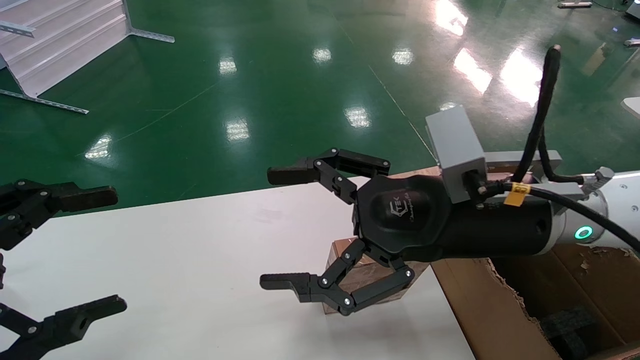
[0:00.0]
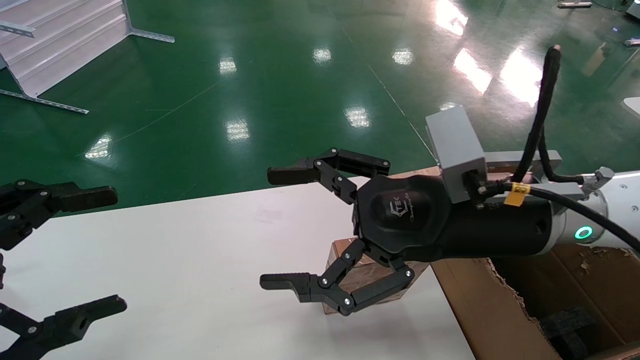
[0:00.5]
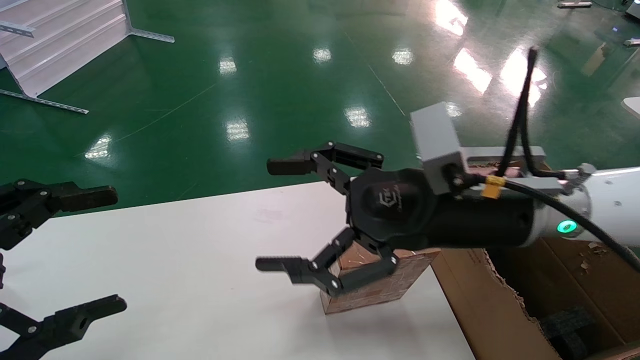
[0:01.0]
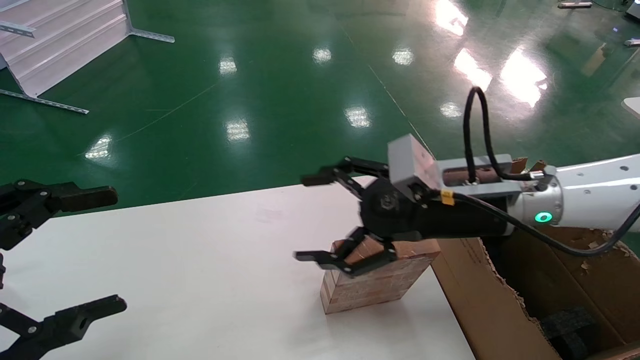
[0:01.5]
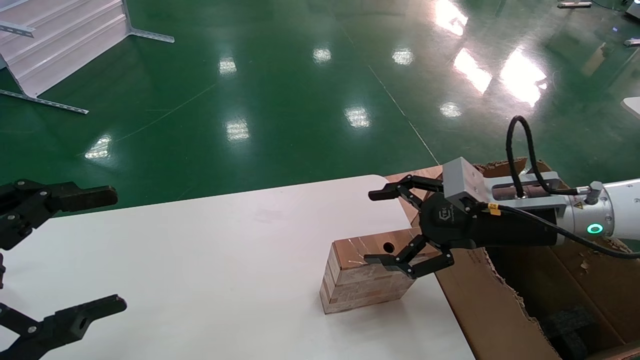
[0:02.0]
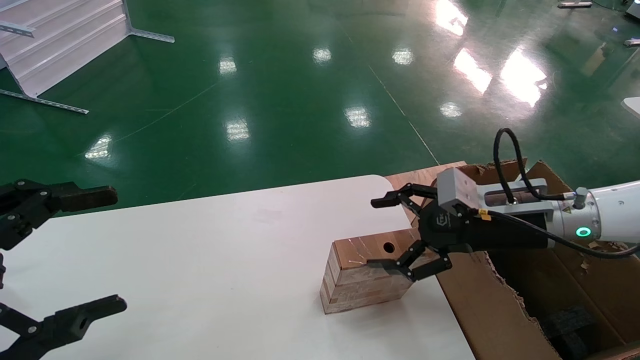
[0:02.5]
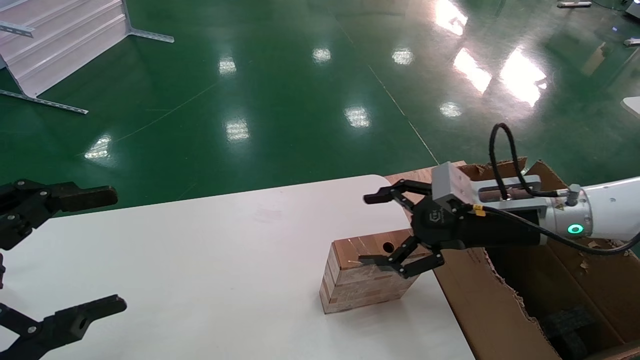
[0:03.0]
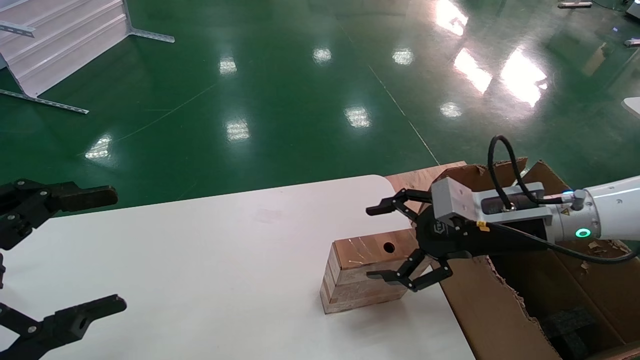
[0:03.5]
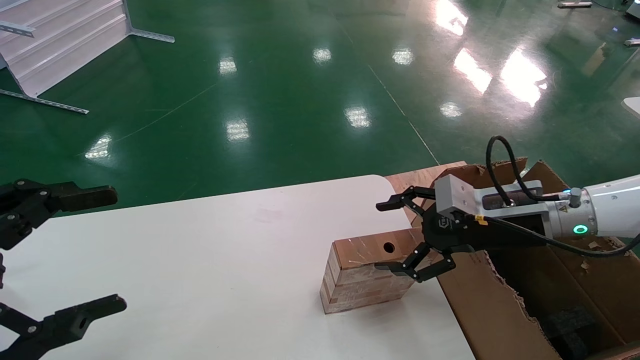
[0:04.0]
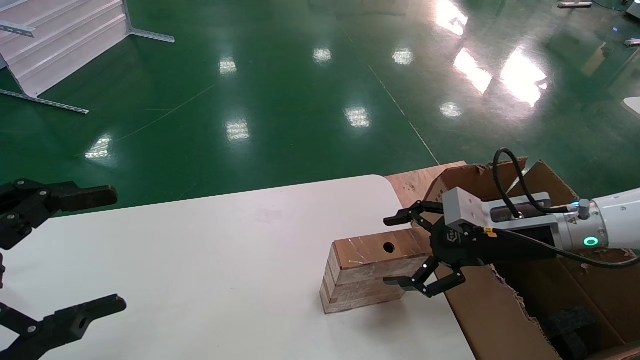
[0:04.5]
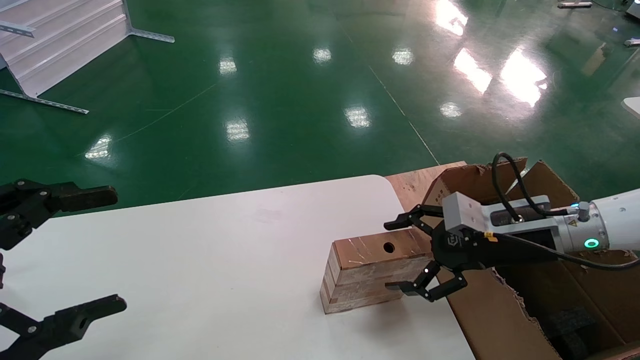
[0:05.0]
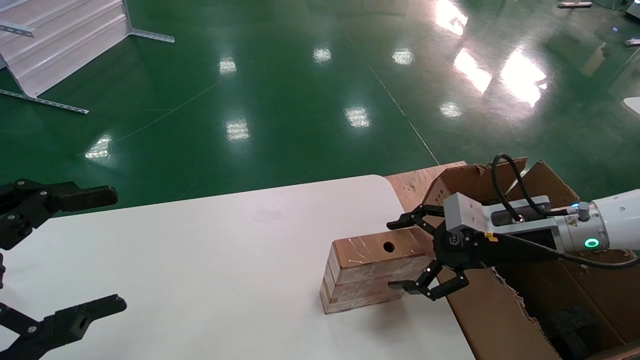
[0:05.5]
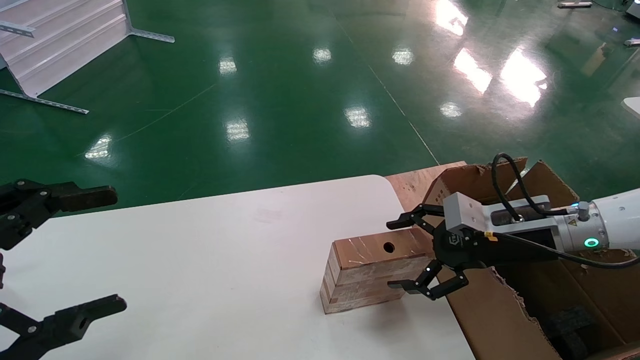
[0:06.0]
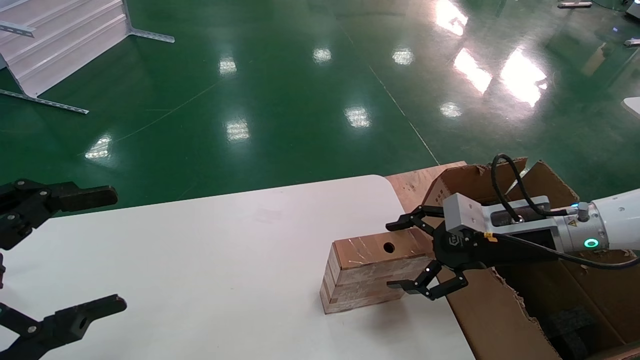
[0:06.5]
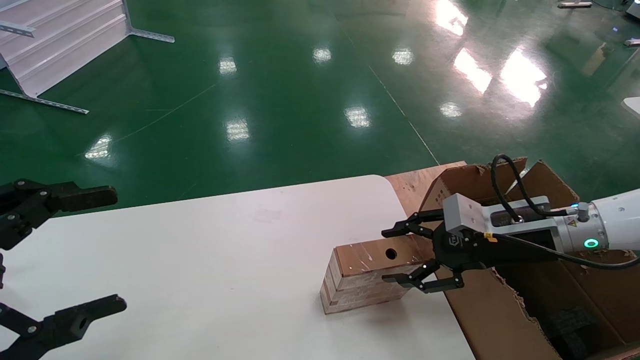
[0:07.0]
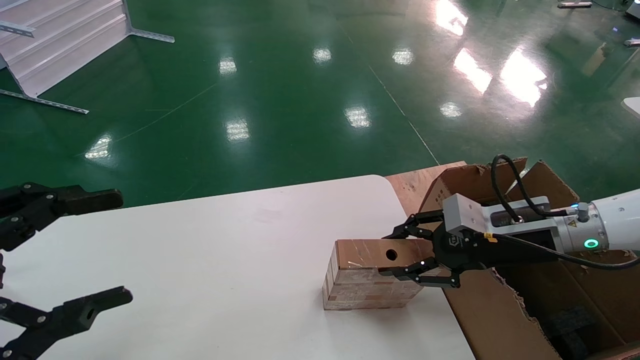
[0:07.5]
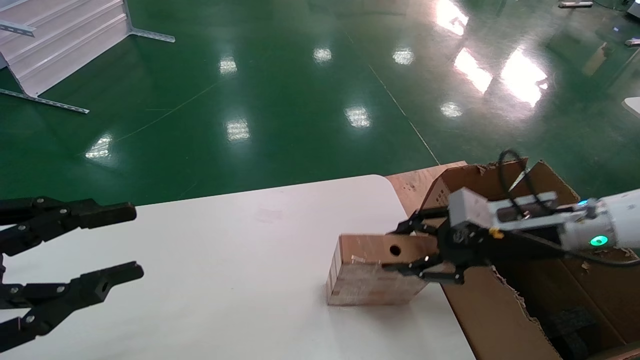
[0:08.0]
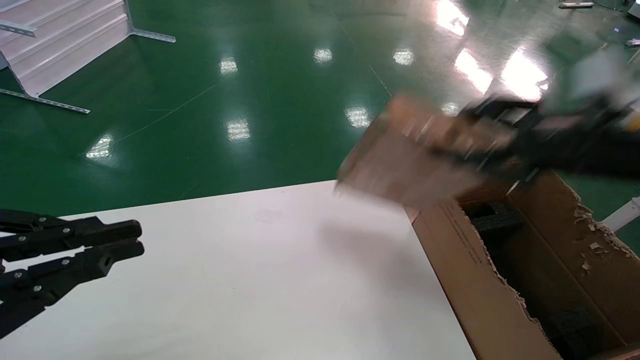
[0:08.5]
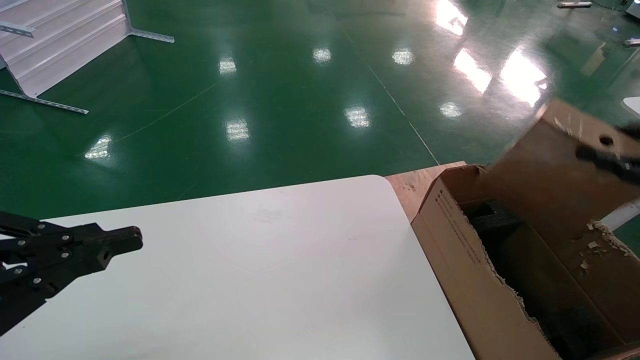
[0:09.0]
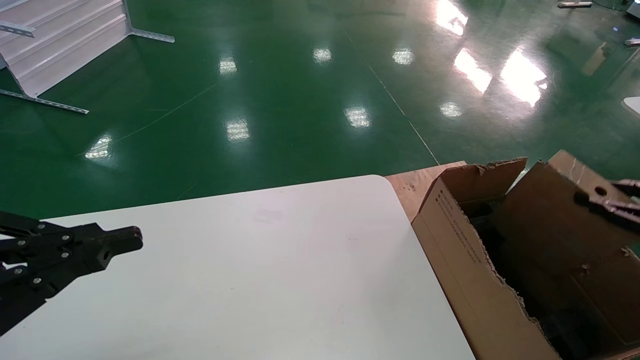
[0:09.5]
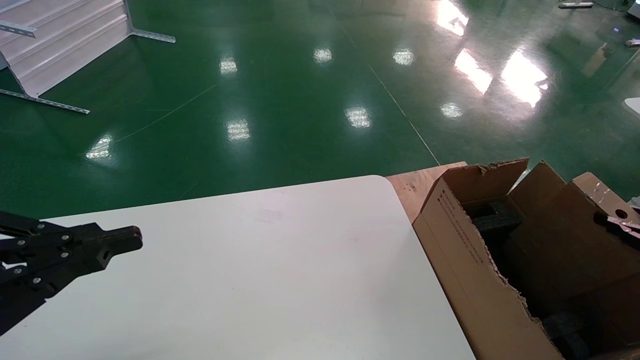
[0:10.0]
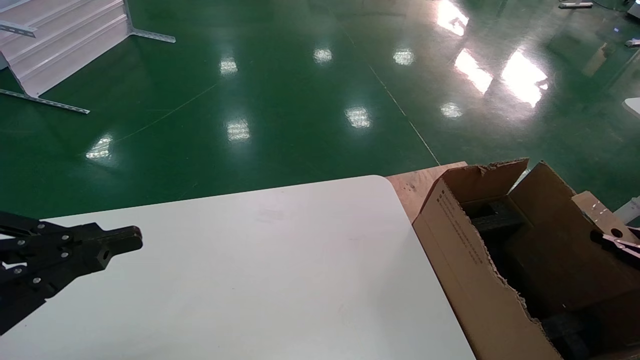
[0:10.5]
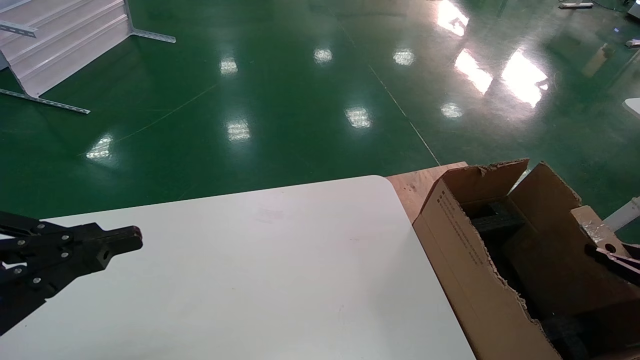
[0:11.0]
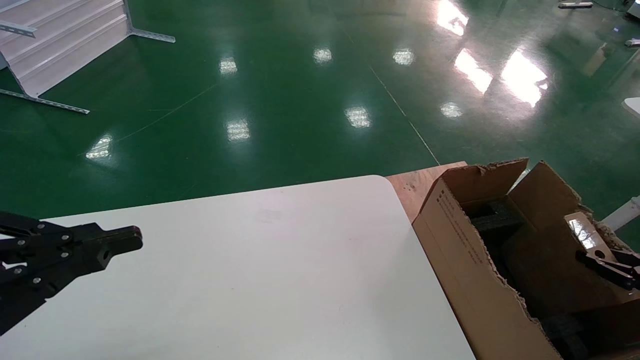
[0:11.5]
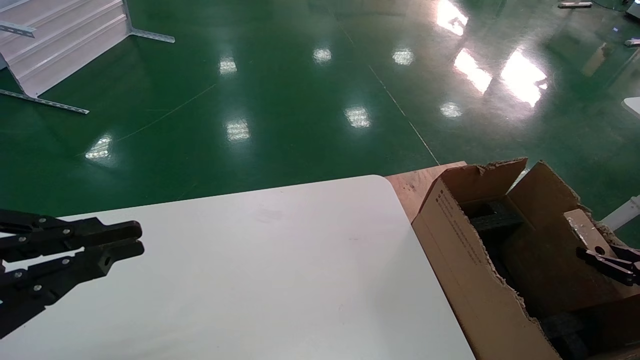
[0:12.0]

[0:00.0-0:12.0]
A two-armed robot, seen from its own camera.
Task of the whole recording: put the box on the table into the big box.
Step, 0:01.5 to 0:07.0: Pick up the mouse and the power cord paper box.
0:00.0 to 0:02.0: The right gripper goes about 15 cm to the right, forward and downward.
0:02.0 to 0:06.0: The grippers stay close to where they were, moving slightly.
0:06.0 to 0:08.0: The left gripper closes; the right gripper closes up.
0:08.0 to 0:10.0: The right gripper shifts some 30 cm to the right and backward, while the left gripper closes.
0:10.0 to 0:12.0: The right gripper heads downward, covering approximately 5 cm.

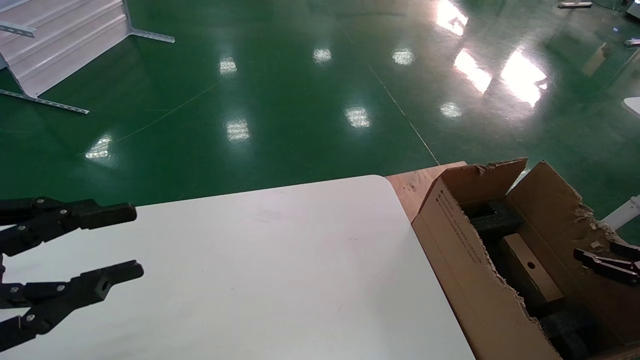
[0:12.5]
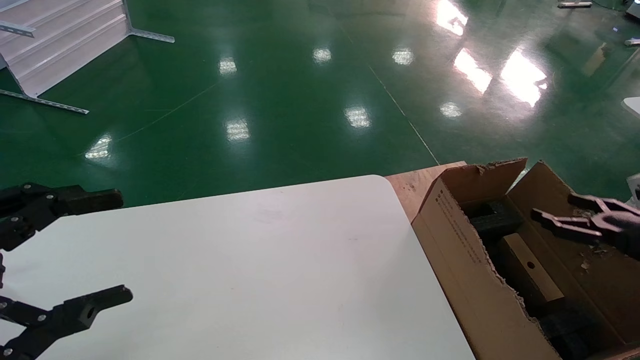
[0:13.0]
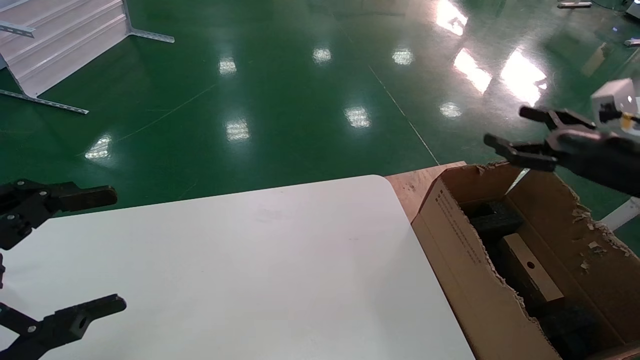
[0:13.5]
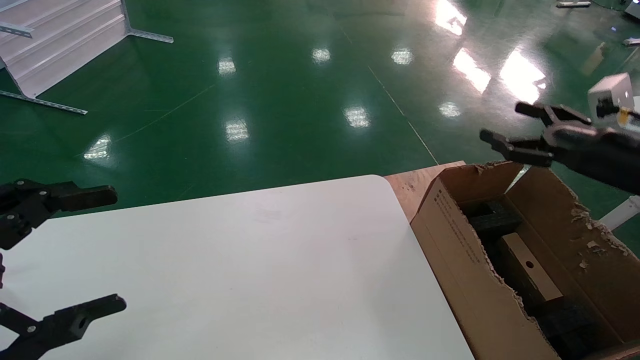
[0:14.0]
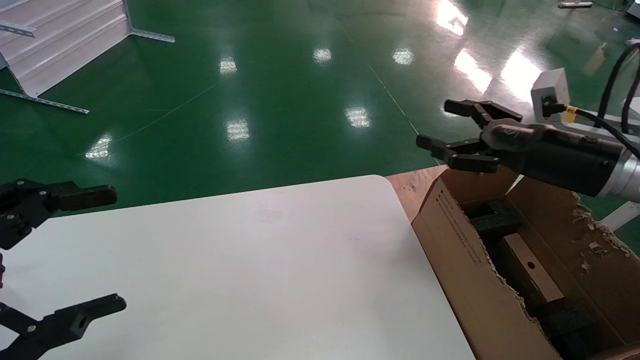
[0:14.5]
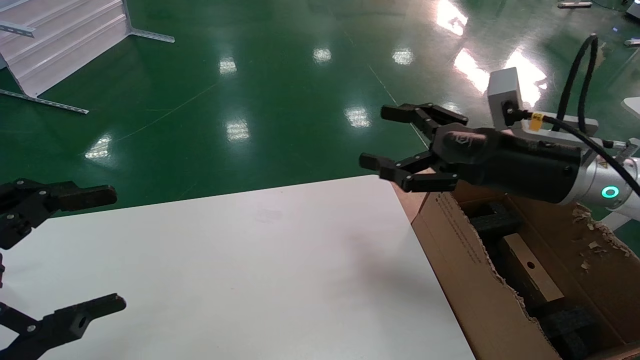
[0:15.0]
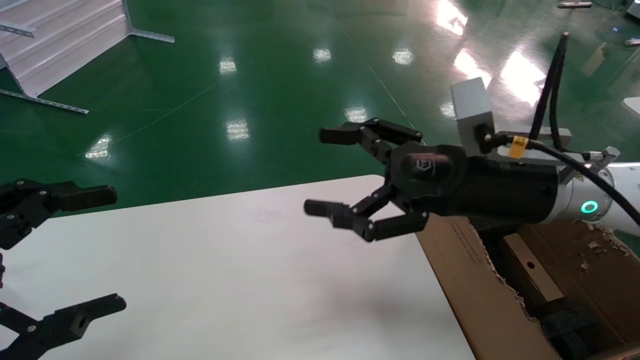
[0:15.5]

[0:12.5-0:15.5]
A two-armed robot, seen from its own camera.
Task of the whole recording: put the box on the table into the big box.
0:12.5 to 0:14.0: The right gripper shifts about 20 cm upward, to the left and forward, and opens its fingers. Meanwhile the left gripper opens up.
0:14.0 to 0:15.5: The right gripper moves to the left, roughly 25 cm.
